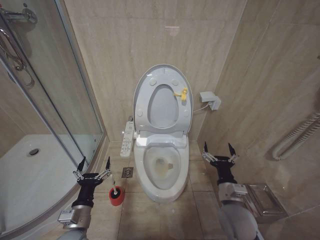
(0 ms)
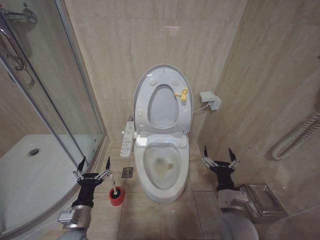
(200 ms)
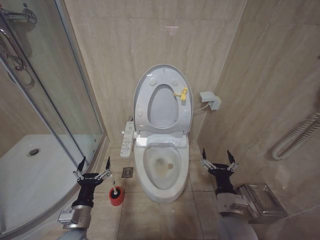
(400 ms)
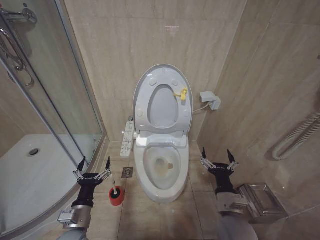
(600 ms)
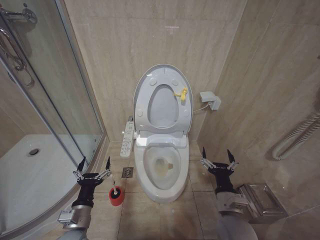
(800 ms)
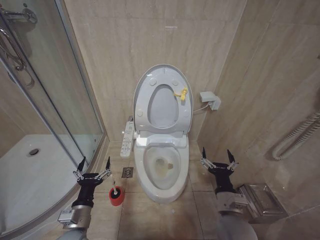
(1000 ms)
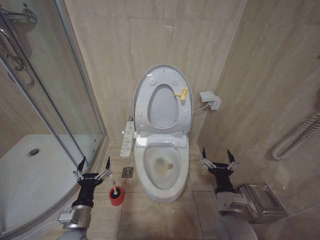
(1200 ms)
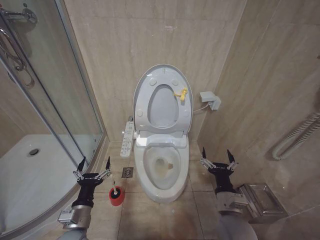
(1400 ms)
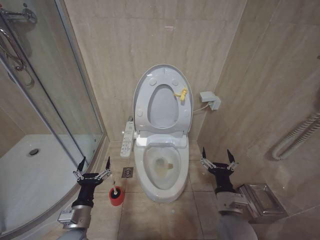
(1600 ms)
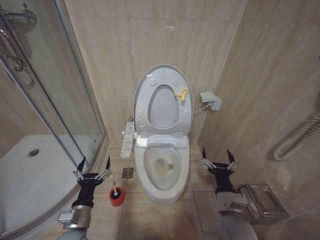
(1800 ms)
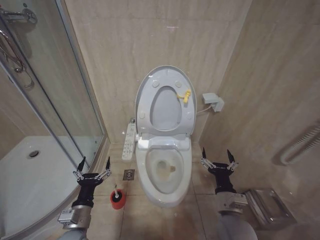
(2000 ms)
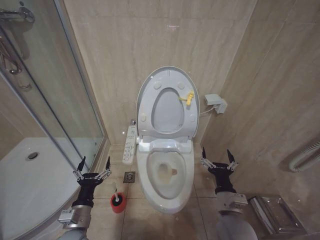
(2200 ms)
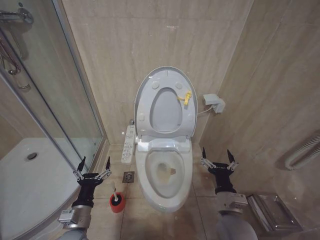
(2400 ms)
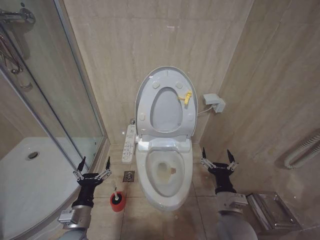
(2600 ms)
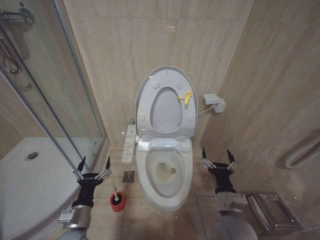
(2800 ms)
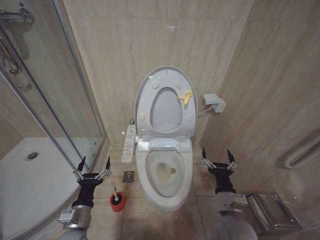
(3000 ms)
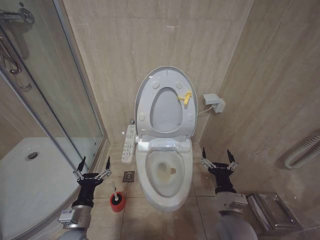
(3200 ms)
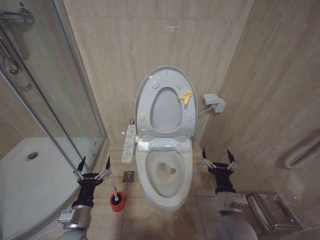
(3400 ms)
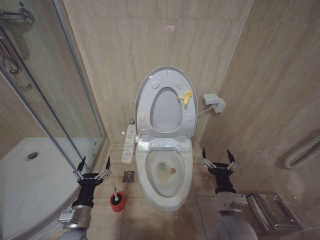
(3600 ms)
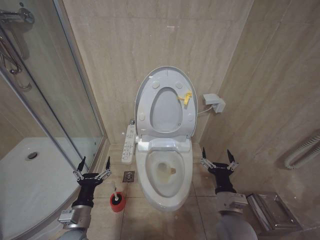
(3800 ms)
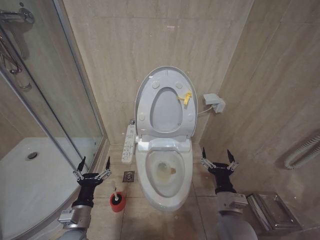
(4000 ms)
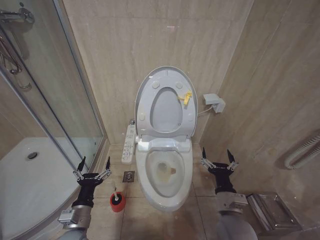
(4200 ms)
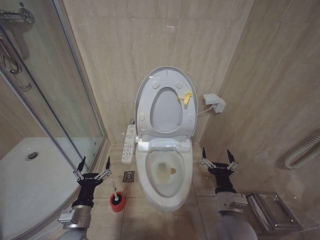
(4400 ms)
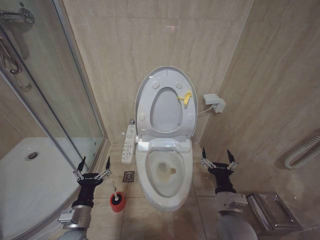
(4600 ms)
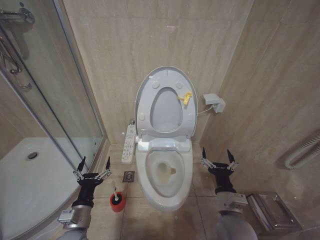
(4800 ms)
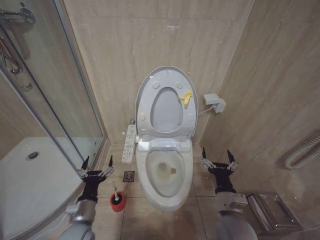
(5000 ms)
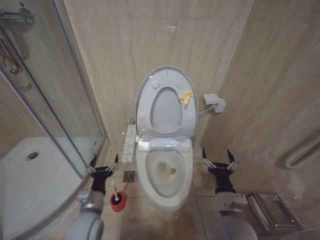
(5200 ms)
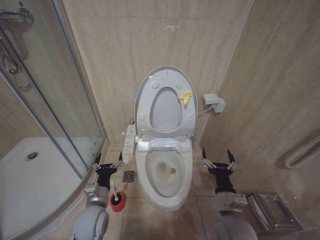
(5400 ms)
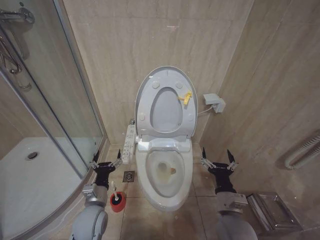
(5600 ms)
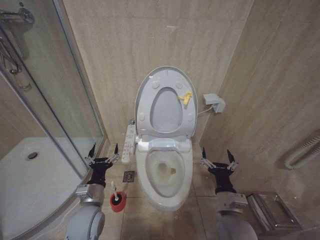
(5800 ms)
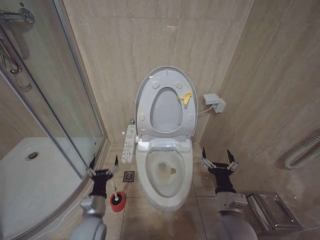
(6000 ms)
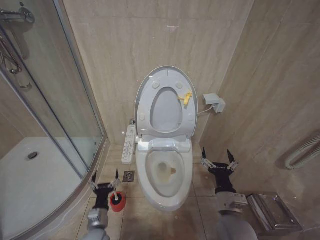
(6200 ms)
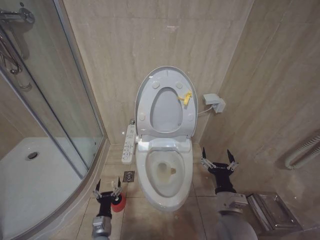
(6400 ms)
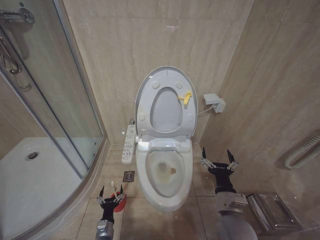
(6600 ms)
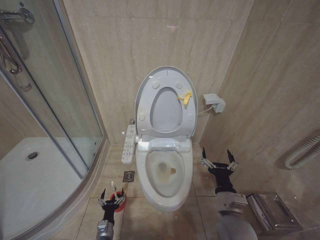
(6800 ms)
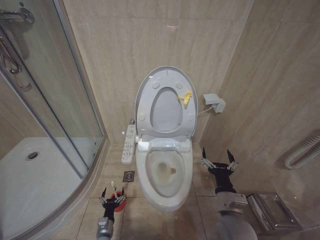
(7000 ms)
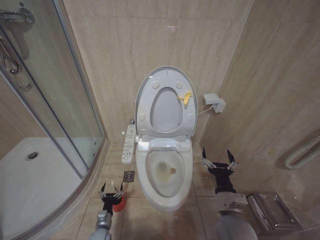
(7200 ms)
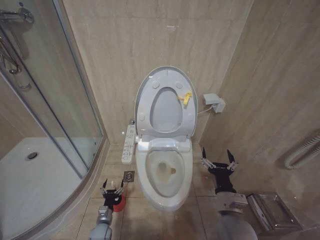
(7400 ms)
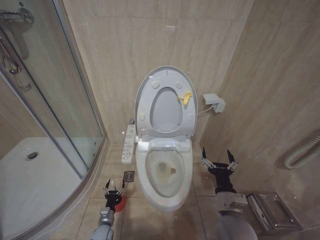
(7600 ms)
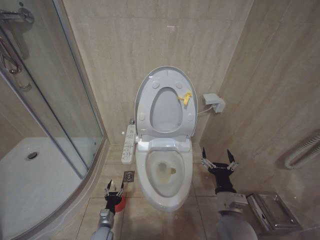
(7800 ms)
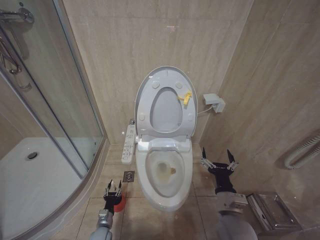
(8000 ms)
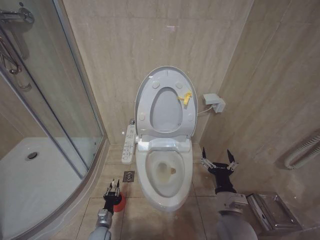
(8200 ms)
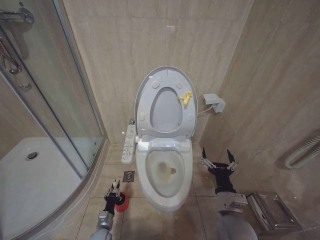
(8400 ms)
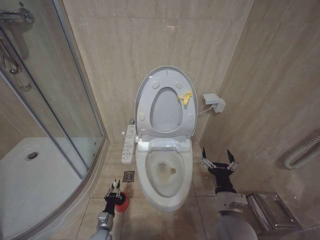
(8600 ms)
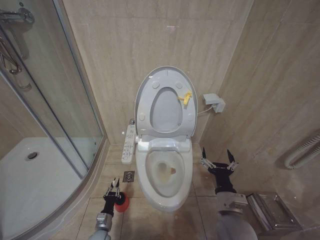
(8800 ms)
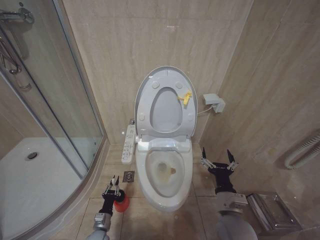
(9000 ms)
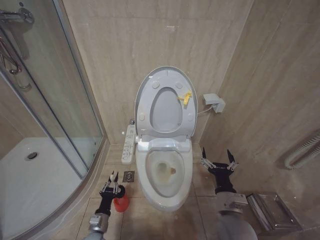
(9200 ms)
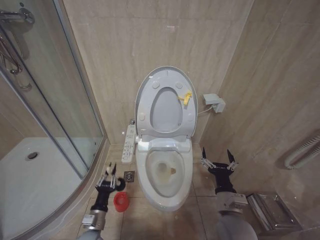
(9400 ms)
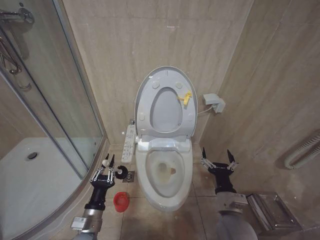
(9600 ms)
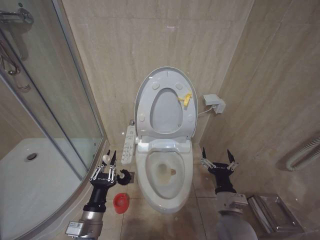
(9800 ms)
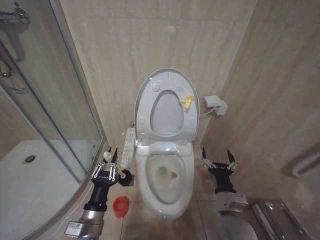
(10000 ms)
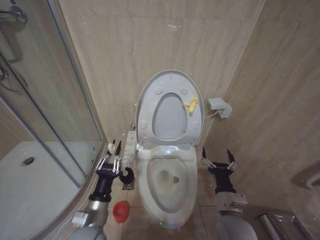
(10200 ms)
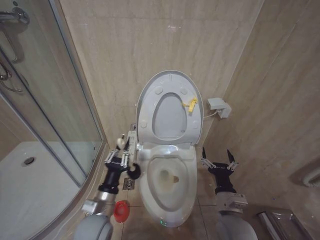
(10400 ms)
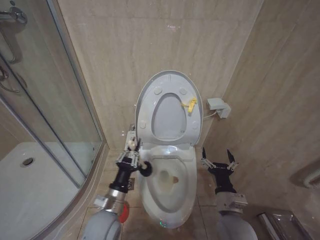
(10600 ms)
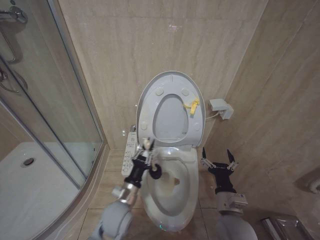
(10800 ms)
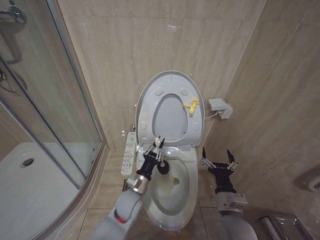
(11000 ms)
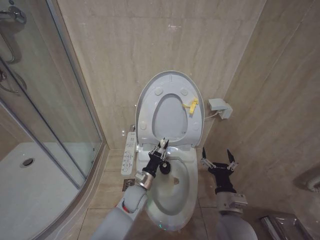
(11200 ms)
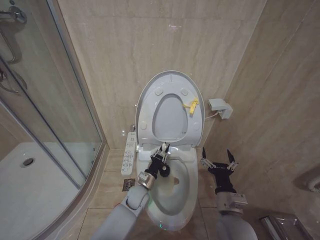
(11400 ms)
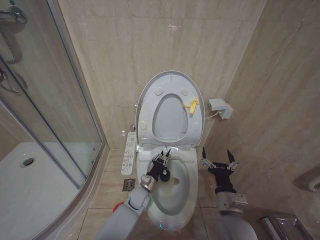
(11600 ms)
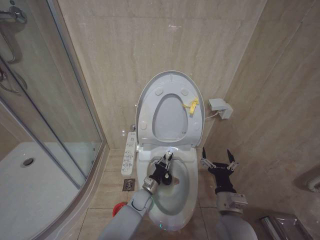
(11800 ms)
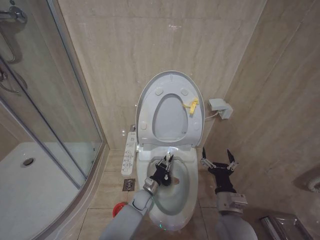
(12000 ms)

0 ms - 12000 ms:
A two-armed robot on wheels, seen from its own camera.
Task of the whole recording: Open the toilet lid, clean the toilet bowl with a toilet brush, close the toilet lid, and flush.
0 ms - 1600 ms: The grippers move only a little.
1600 ms - 4400 ms: Both grippers stay put.
4400 ms - 6000 ms: The left gripper ends up some 5 cm from where it was.
6000 ms - 7600 ms: The left gripper is displaced downward by some 25 cm.
7600 ms - 9000 ms: The left gripper closes its fingers.
9000 ms - 10400 ms: The left gripper shifts some 25 cm upward.
10400 ms - 12000 ms: The left gripper is displaced downward, forward and to the right by roughly 30 cm.

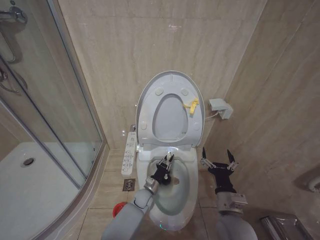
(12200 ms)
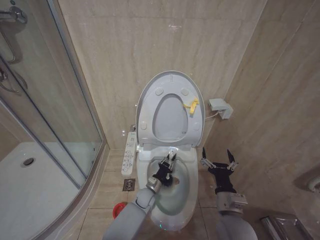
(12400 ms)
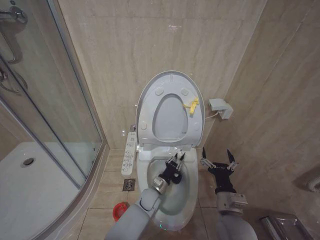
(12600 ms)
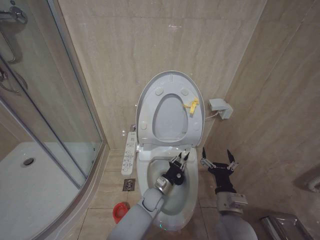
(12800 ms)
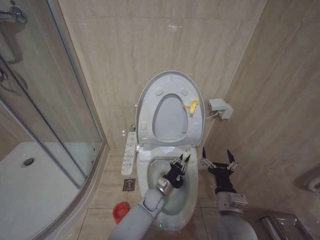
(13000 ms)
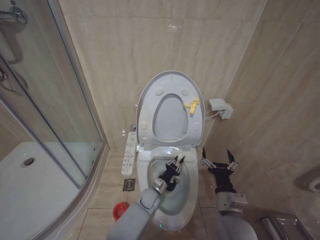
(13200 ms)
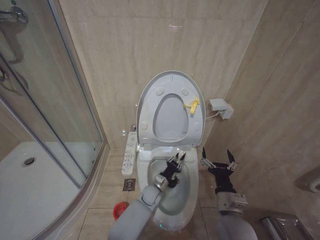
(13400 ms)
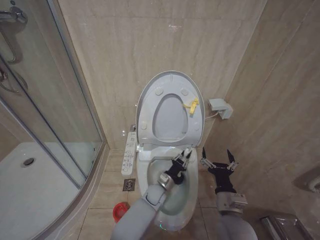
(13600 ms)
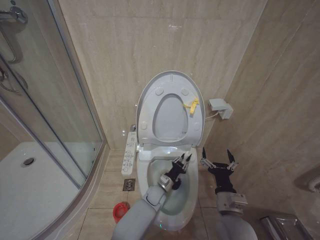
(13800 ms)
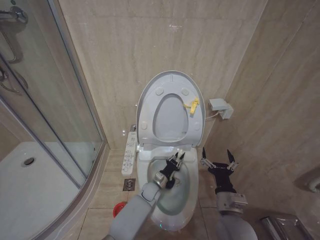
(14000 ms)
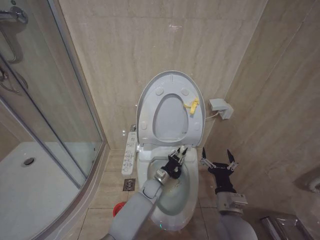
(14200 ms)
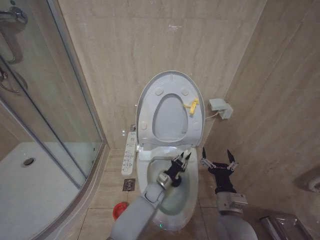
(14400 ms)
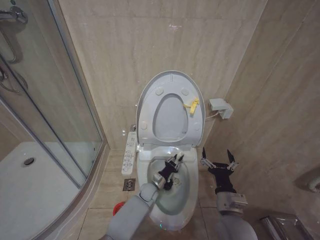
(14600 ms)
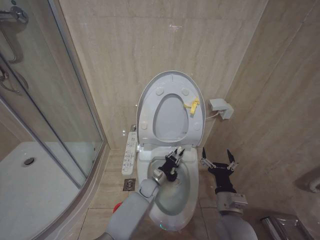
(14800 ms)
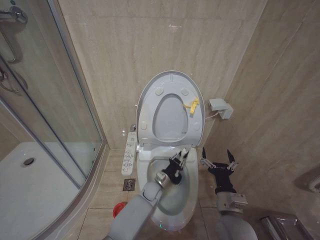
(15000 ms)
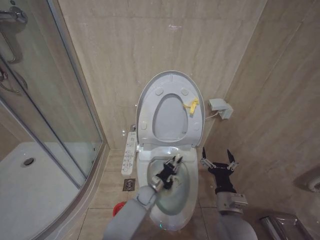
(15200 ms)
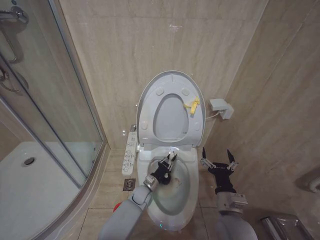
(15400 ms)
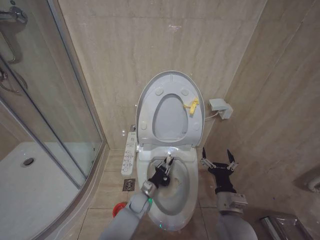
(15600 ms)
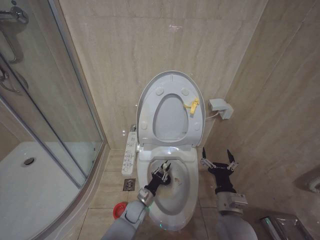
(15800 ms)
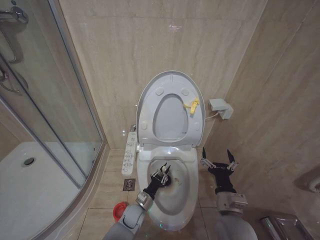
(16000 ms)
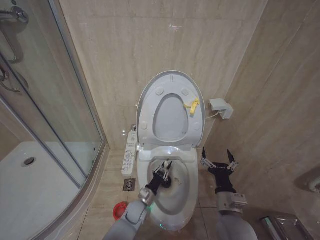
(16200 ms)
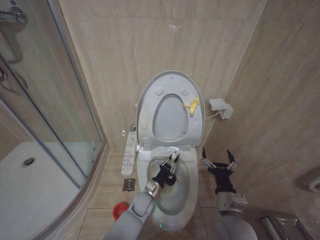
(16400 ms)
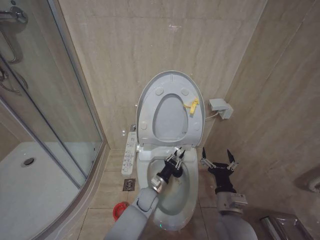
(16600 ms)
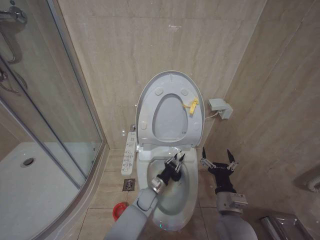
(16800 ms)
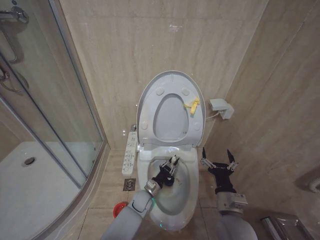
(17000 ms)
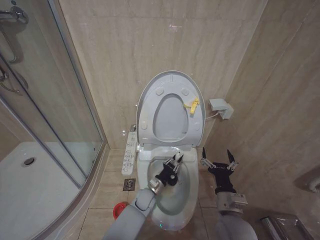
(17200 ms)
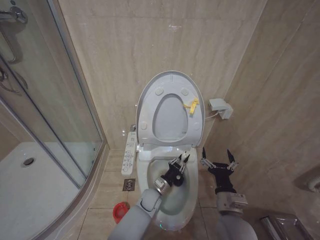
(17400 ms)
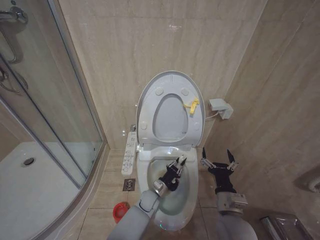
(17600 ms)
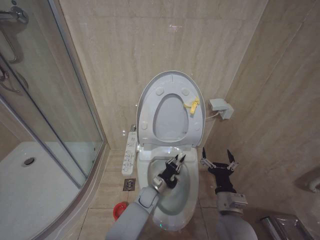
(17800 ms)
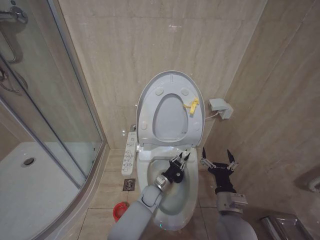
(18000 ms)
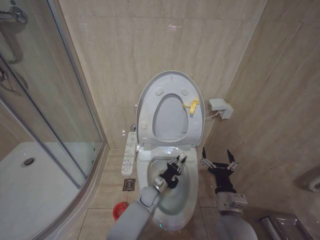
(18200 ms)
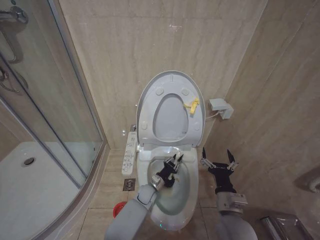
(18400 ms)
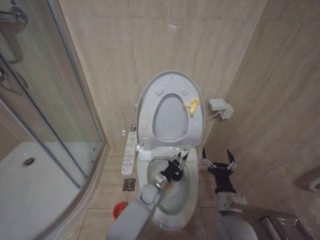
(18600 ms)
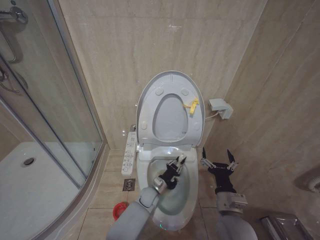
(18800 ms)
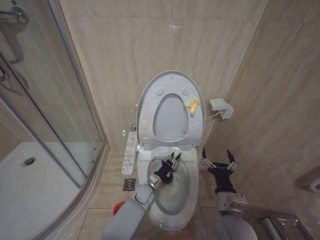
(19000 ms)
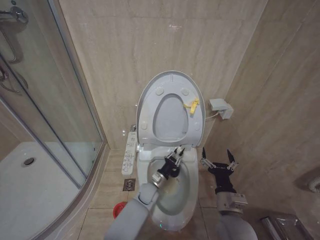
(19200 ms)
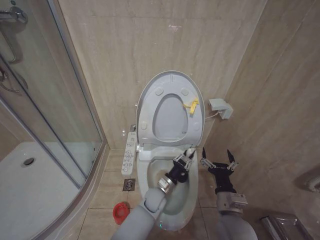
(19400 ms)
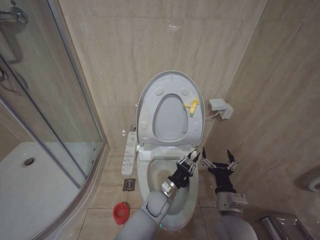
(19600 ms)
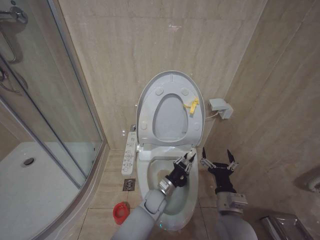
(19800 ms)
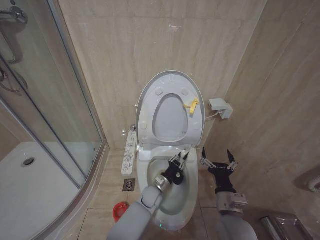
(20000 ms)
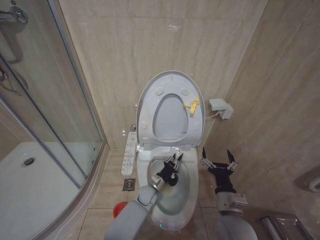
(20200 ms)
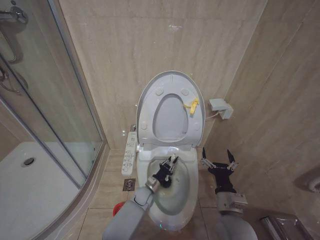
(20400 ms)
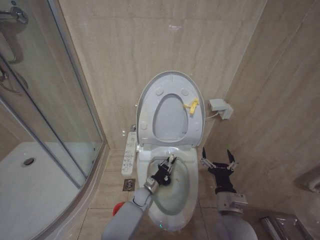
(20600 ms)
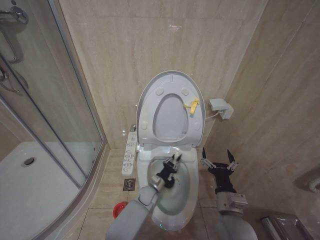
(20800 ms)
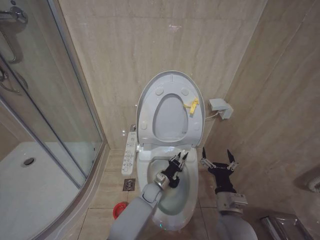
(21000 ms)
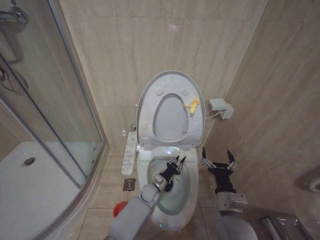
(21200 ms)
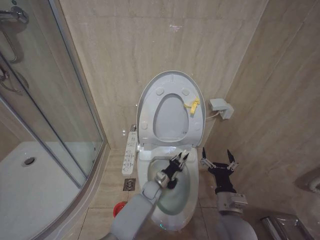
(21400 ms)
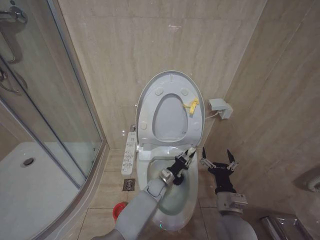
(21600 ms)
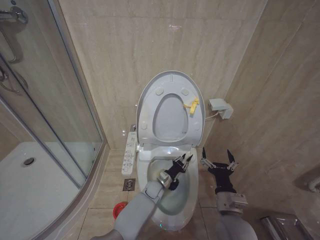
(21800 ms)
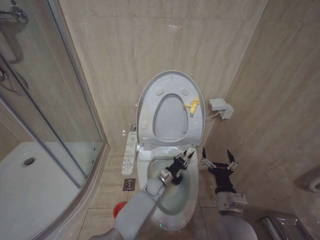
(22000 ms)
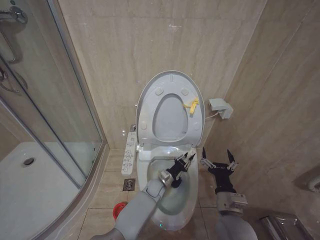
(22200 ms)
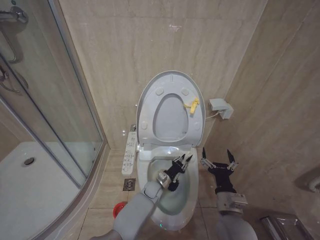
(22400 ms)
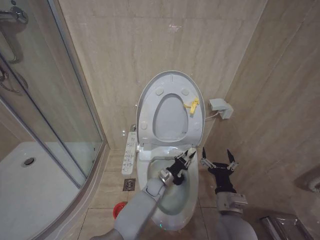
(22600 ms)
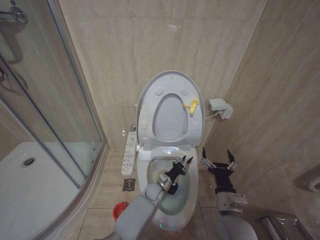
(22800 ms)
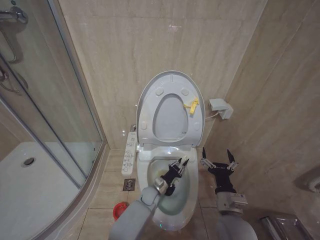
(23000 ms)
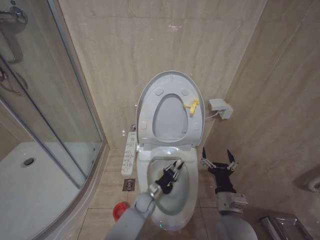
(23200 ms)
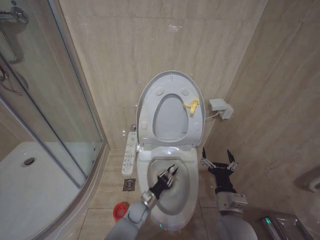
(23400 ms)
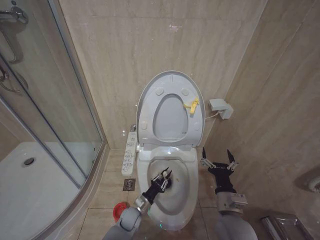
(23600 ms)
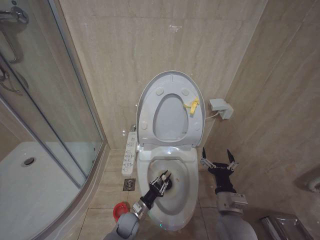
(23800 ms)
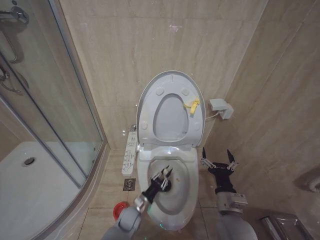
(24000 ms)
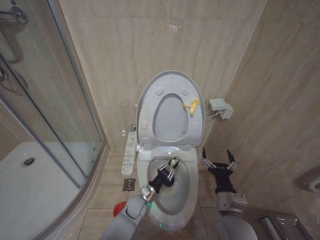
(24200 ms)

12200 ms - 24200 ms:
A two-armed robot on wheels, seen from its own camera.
Task of the whole recording: Open the toilet lid, clean the toilet bowl with a toilet brush, close the toilet lid, and flush.
12200 ms - 13800 ms: The left gripper shifts about 5 cm to the right.
13800 ms - 15200 ms: The grippers stay close to where they were, moving slightly.
15200 ms - 16600 ms: The left gripper reaches approximately 10 cm to the left, then returns.
18200 ms - 19800 ms: The left gripper shifts by roughly 5 cm.
19800 ms - 21200 ms: The left gripper heads forward and downward, covering approximately 10 cm.
21200 ms - 22600 ms: The grippers stay close to where they were, moving slightly.
22600 ms - 24200 ms: The left gripper travels to the left and backward by about 15 cm.
